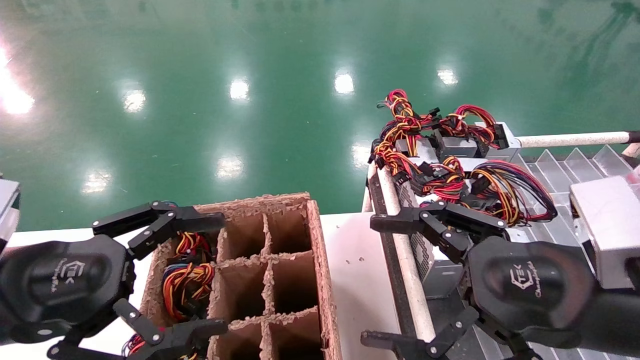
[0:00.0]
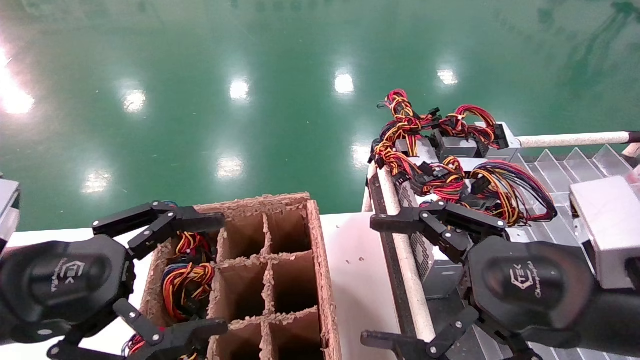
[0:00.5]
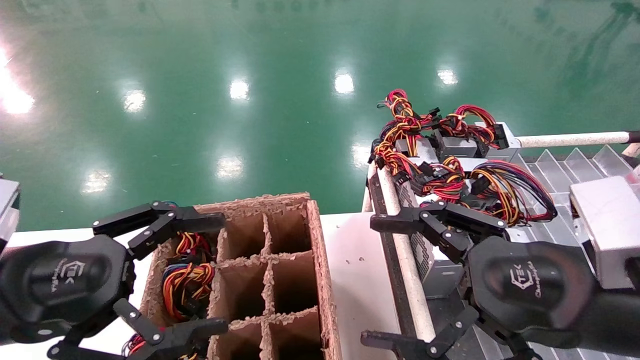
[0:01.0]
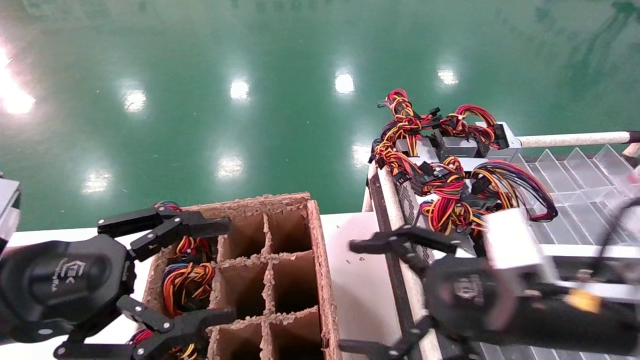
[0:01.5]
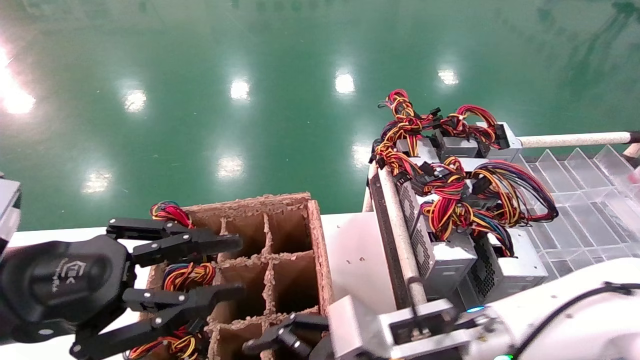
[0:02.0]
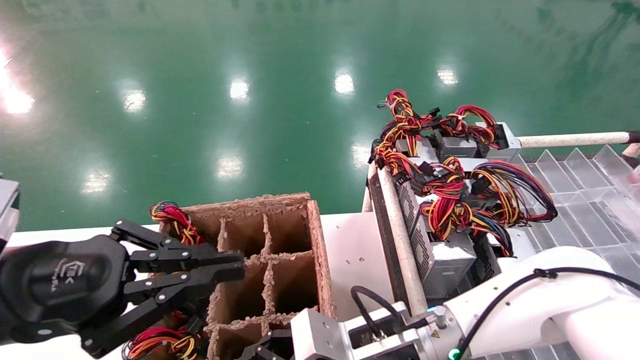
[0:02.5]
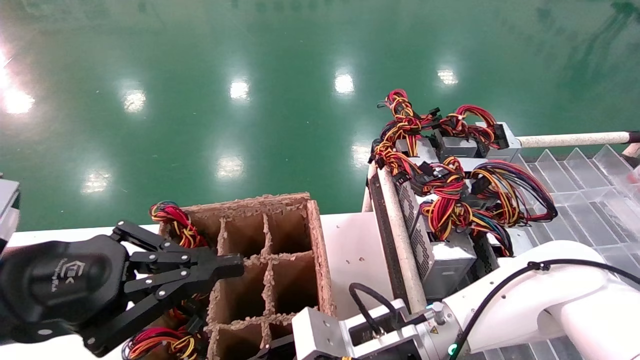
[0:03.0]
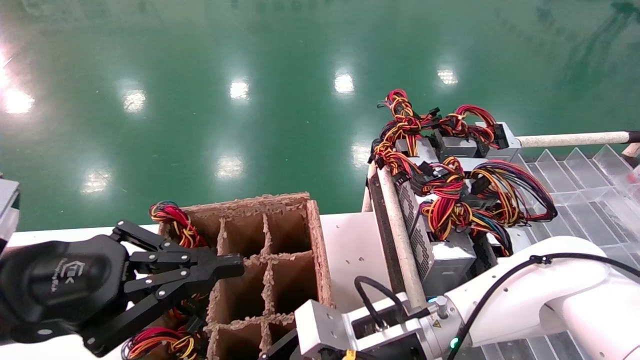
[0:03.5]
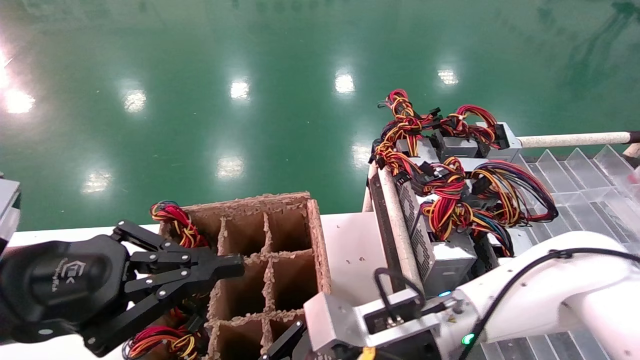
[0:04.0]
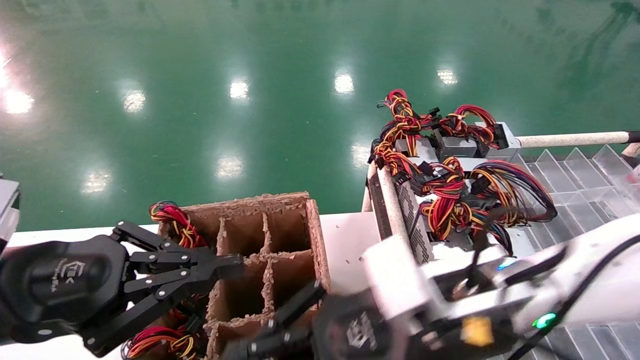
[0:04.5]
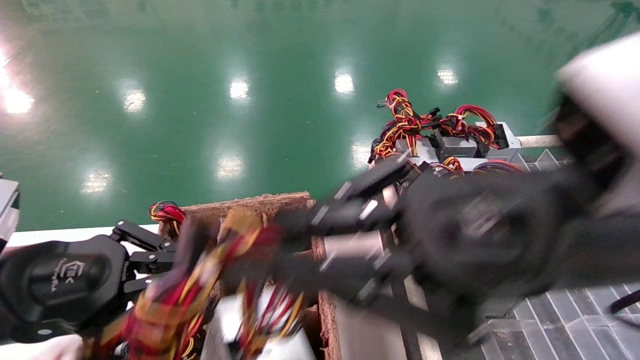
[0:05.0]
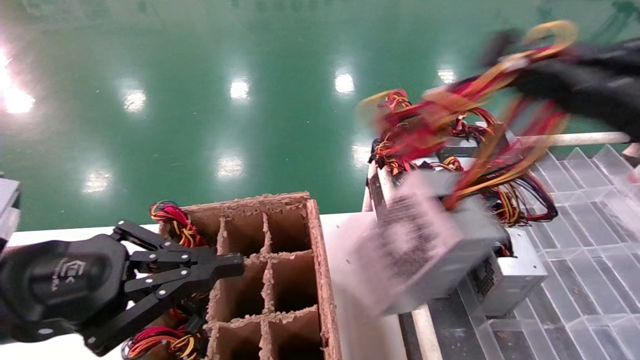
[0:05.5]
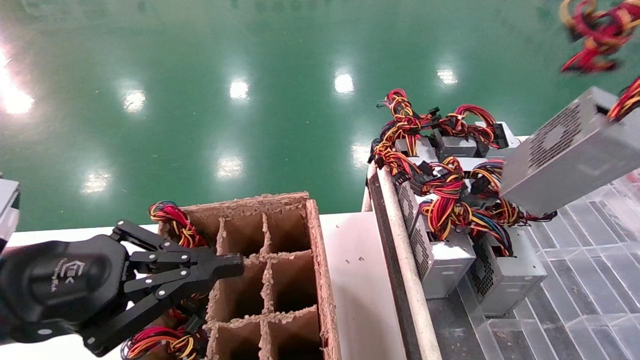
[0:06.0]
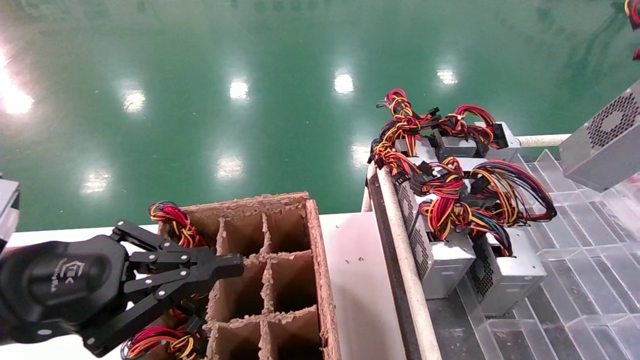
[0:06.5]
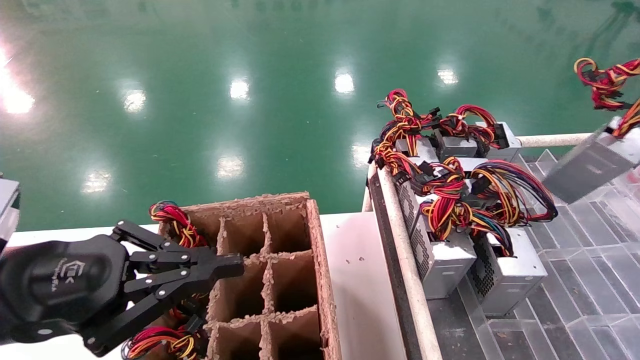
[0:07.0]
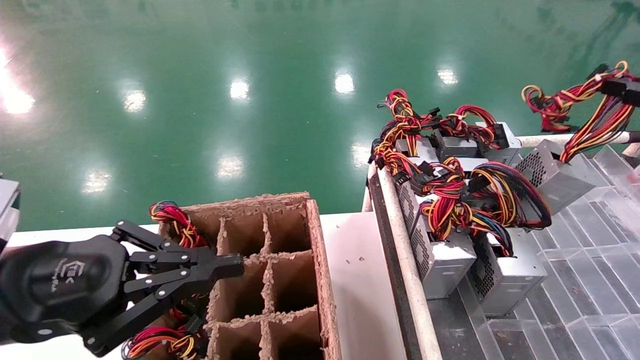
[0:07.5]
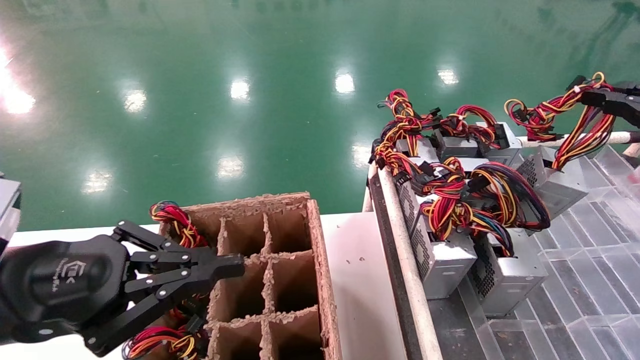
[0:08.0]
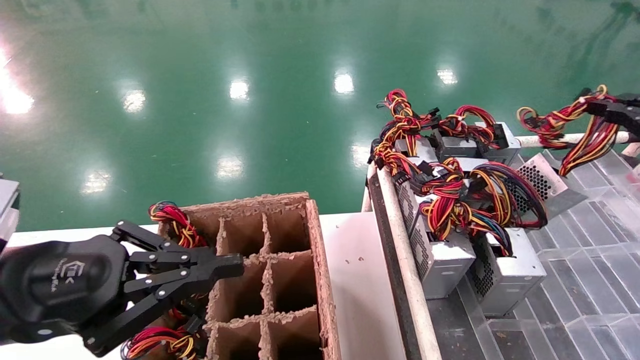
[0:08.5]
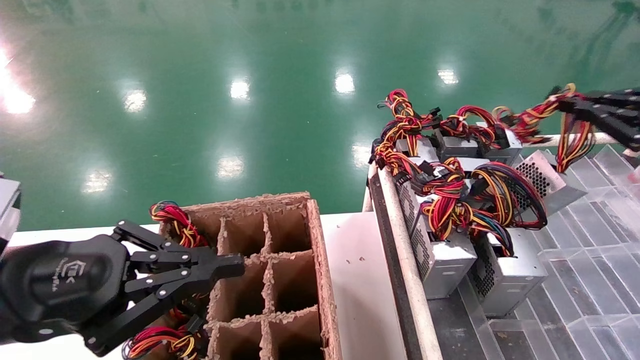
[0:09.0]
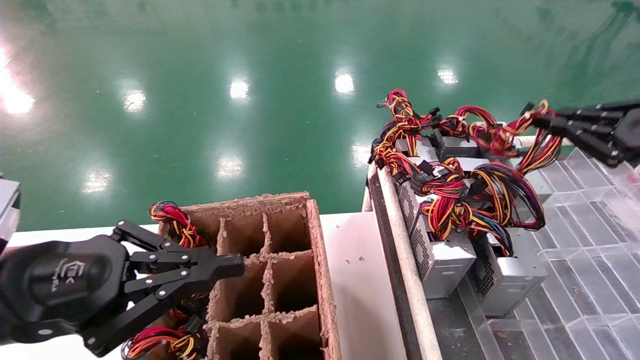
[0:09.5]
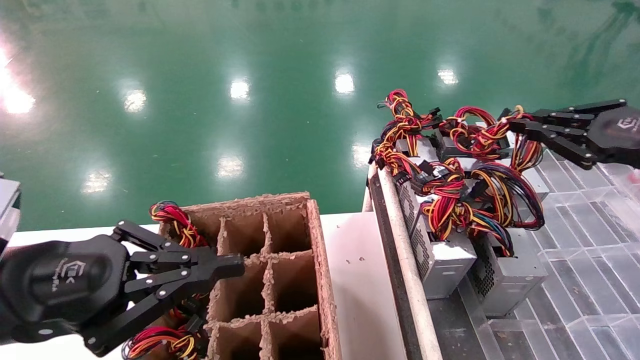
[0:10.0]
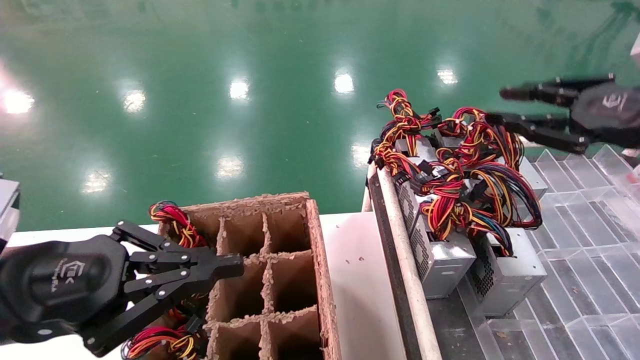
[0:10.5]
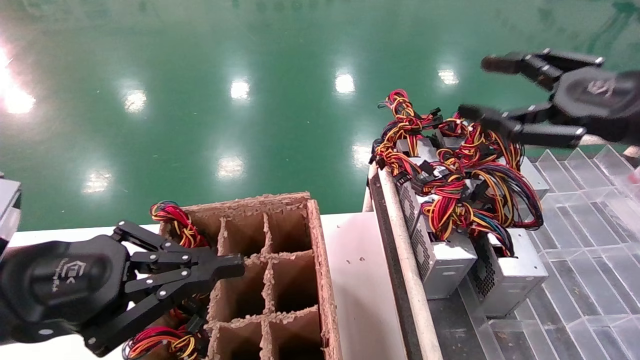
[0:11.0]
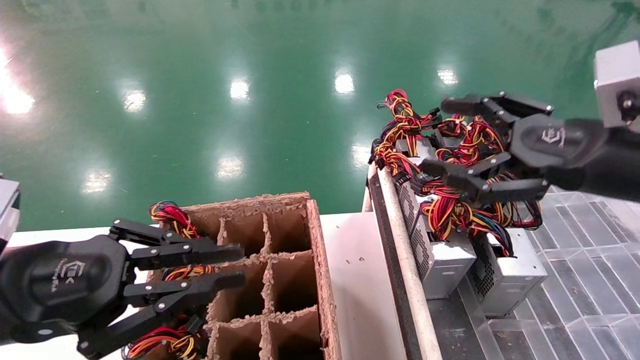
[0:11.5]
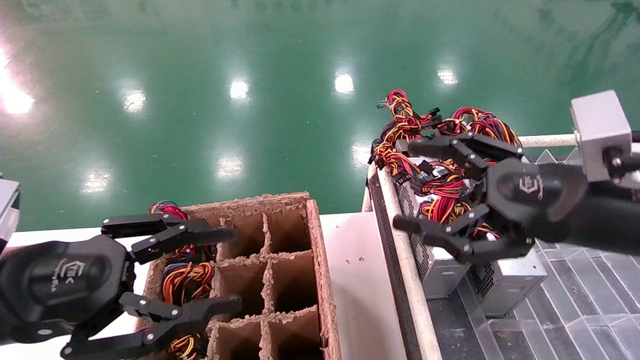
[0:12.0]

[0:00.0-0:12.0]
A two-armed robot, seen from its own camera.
Step, 0:01.5 to 0:04.0: Grab the main unit power supply from the containment box.
Step, 0:04.5 to 0:10.0: Place the main unit power supply in the designated area.
0:00.0 to 0:02.0: The left gripper closes up. The right gripper goes roughly 20 cm to the left, downward and forward.
0:02.0 to 0:04.0: The right gripper closes; the left gripper closes up.
0:04.0 to 0:06.0: The right gripper heads to the right and upward, covering roughly 40 cm.
0:06.0 to 0:08.0: The right gripper goes about 10 cm forward.
0:08.0 to 0:10.0: The right gripper shifts roughly 5 cm forward.
0:10.0 to 0:12.0: The left gripper opens its fingers, while the right gripper moves to the left, about 15 cm, and opens up.

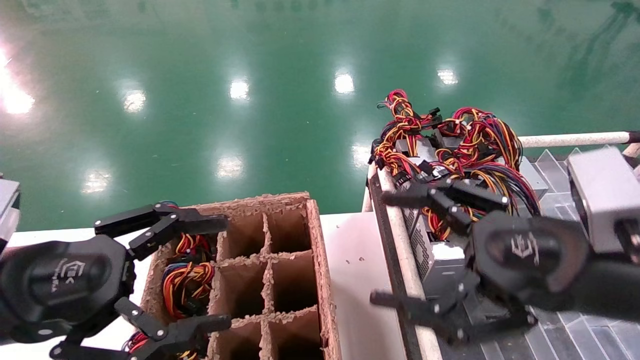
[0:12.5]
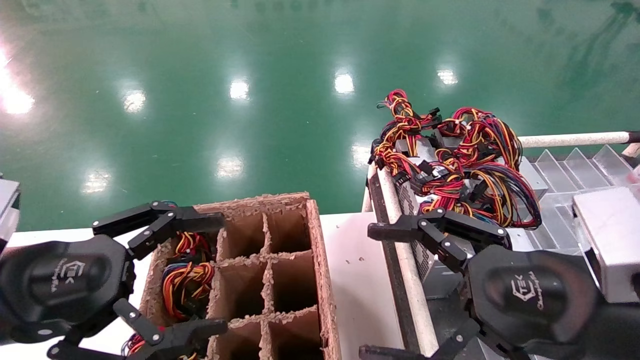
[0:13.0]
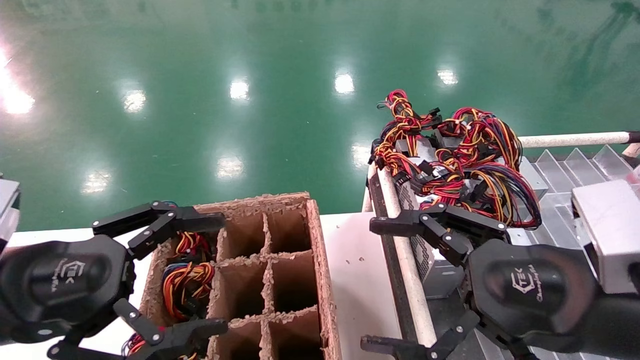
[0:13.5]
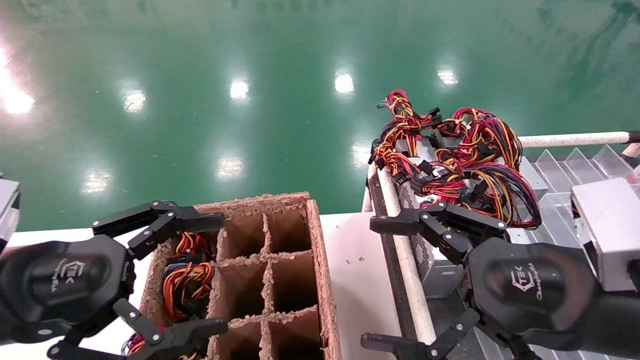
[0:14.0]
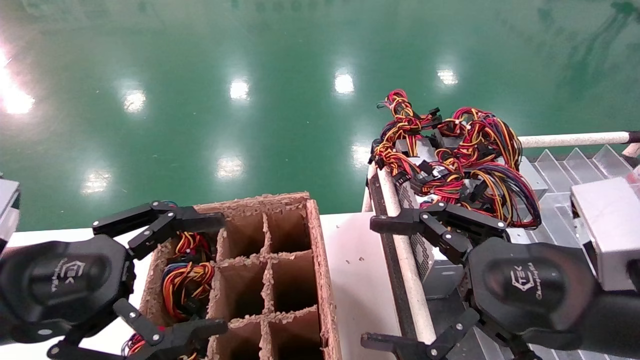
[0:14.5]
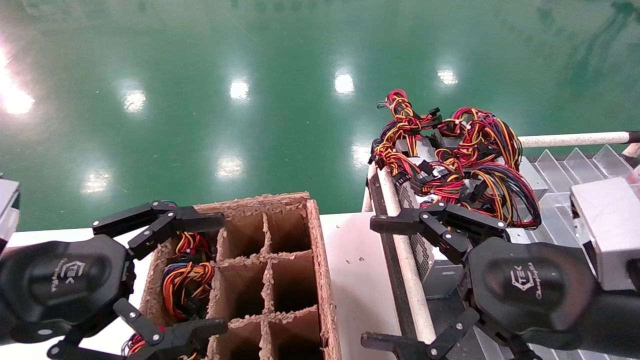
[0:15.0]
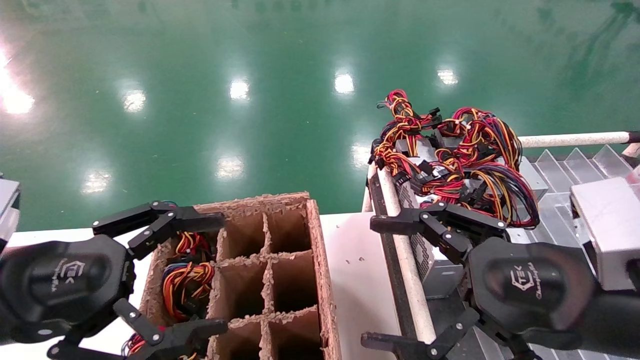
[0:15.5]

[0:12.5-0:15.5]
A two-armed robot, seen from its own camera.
0:12.5 to 0:14.0: The grippers make only small movements.
0:14.0 to 0:15.5: The two grippers keep their place.
